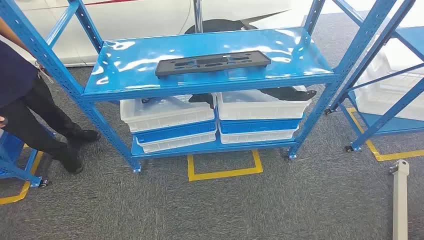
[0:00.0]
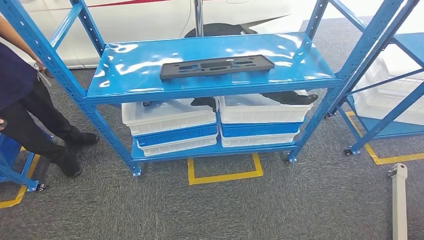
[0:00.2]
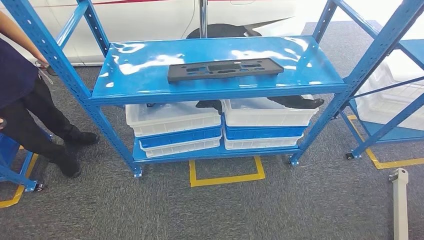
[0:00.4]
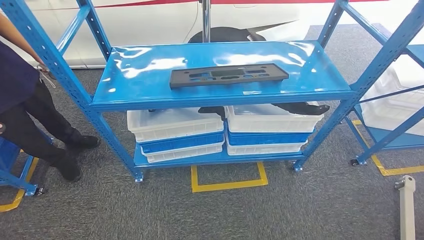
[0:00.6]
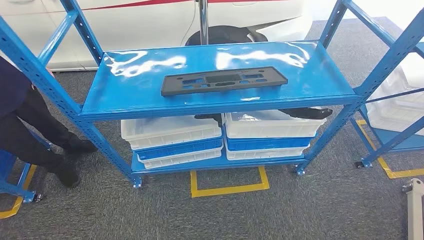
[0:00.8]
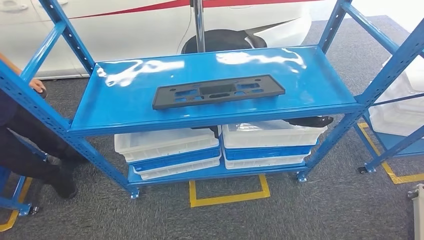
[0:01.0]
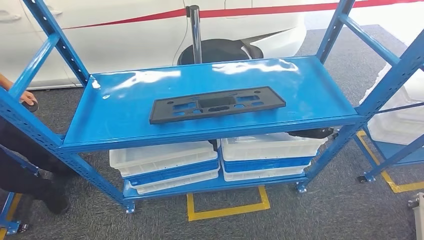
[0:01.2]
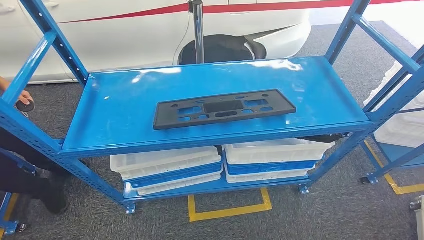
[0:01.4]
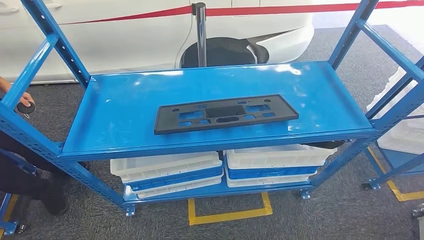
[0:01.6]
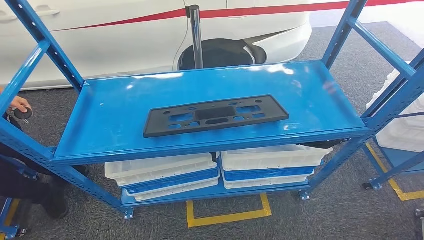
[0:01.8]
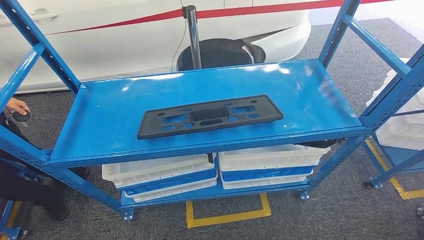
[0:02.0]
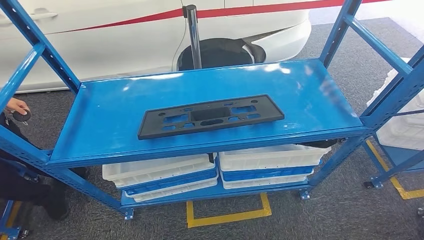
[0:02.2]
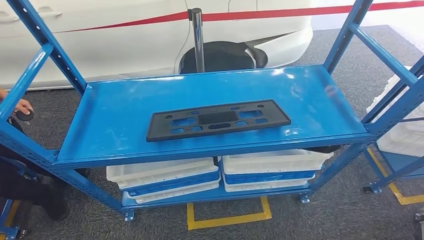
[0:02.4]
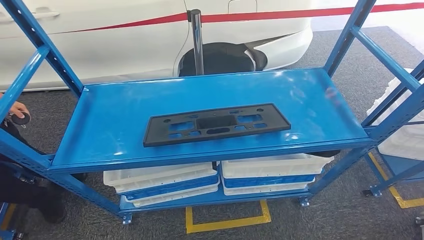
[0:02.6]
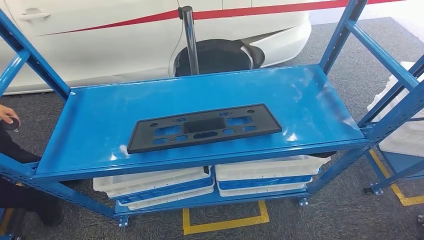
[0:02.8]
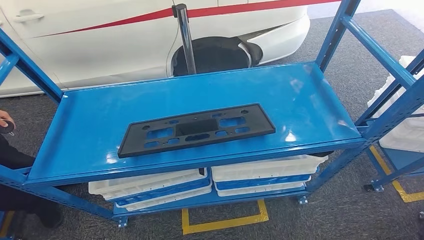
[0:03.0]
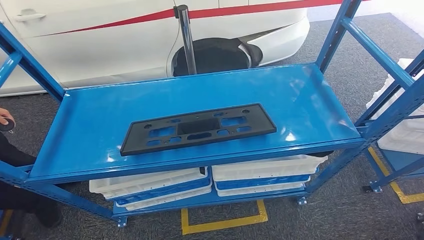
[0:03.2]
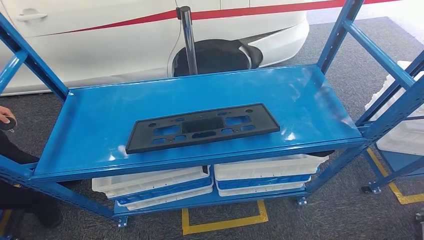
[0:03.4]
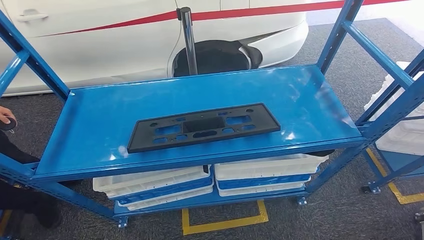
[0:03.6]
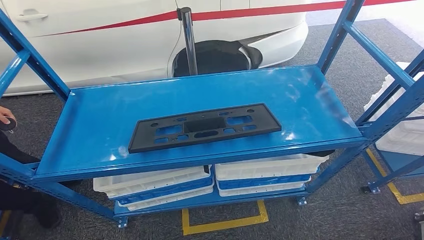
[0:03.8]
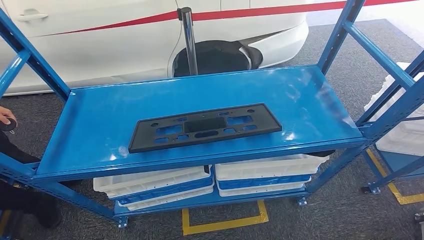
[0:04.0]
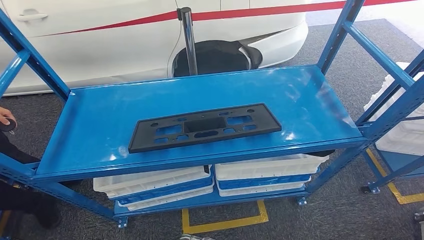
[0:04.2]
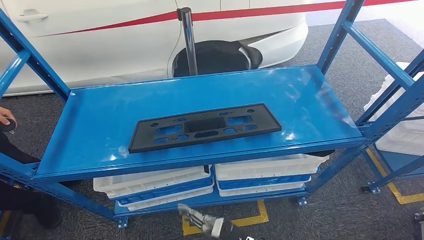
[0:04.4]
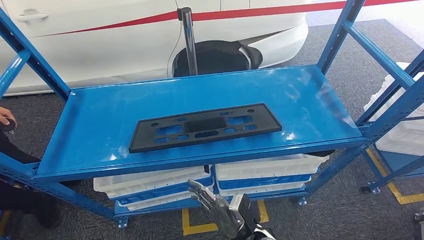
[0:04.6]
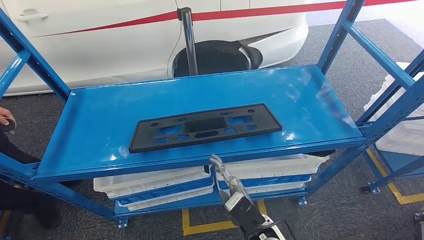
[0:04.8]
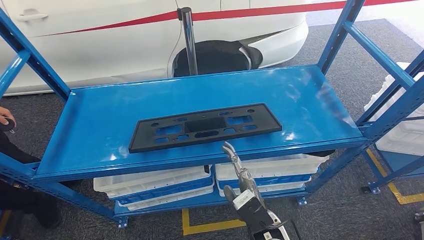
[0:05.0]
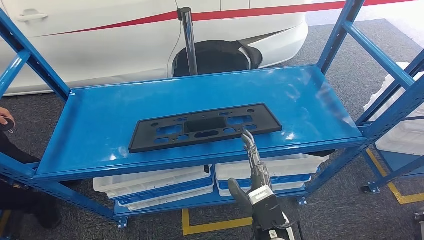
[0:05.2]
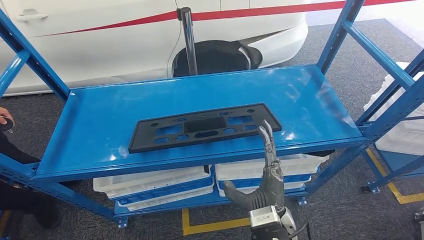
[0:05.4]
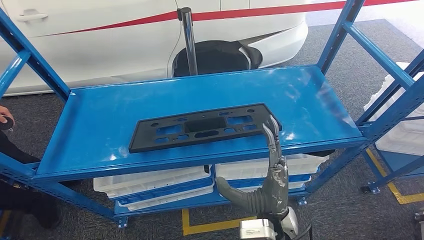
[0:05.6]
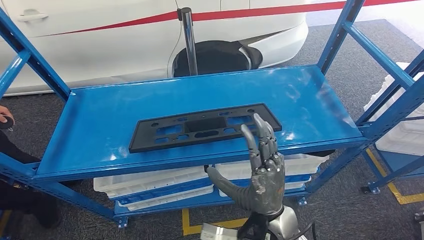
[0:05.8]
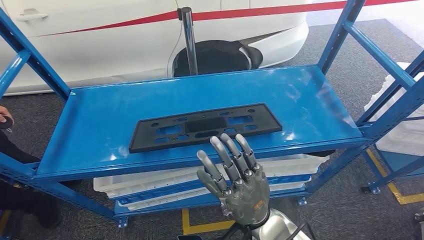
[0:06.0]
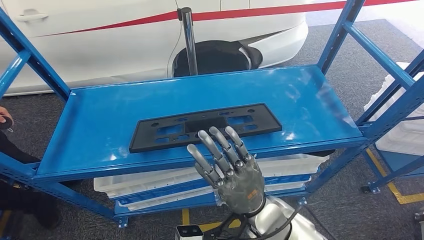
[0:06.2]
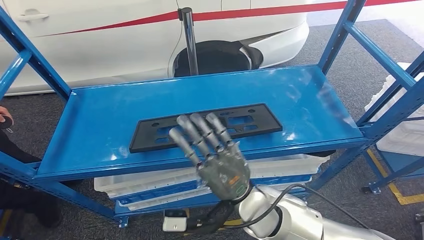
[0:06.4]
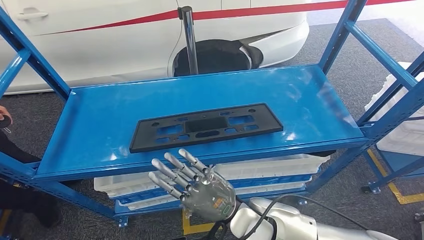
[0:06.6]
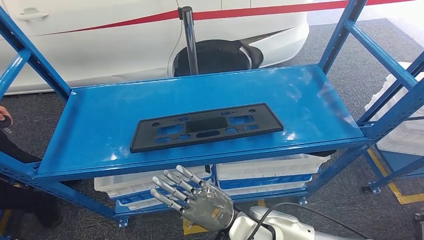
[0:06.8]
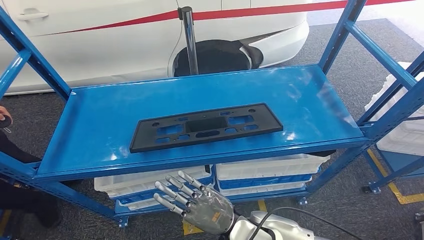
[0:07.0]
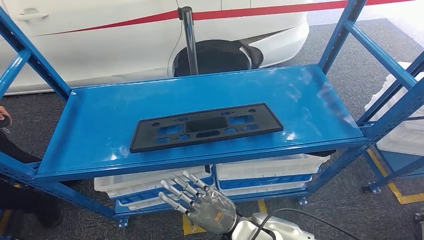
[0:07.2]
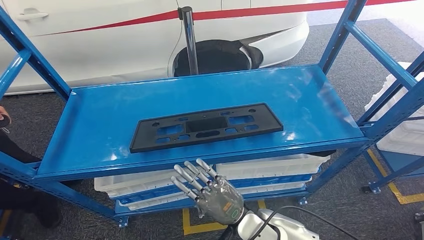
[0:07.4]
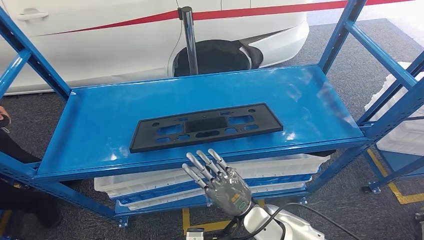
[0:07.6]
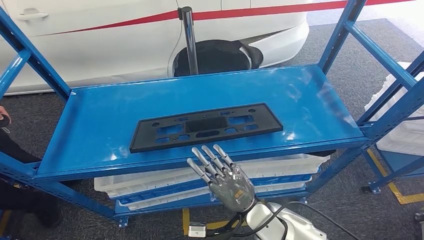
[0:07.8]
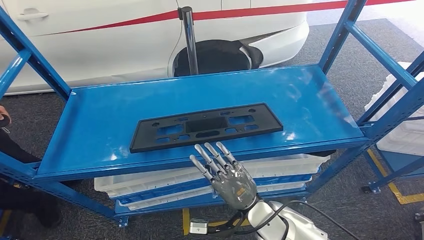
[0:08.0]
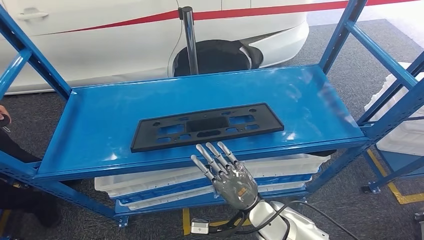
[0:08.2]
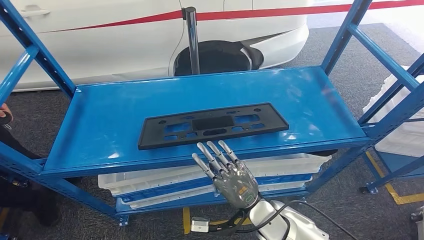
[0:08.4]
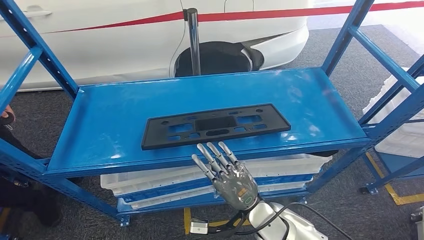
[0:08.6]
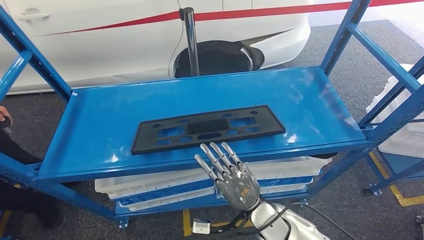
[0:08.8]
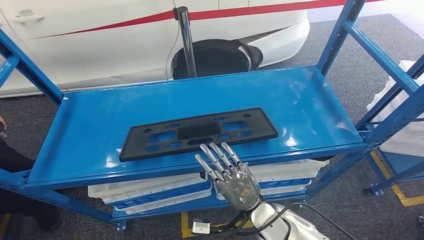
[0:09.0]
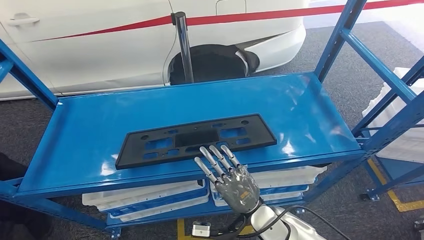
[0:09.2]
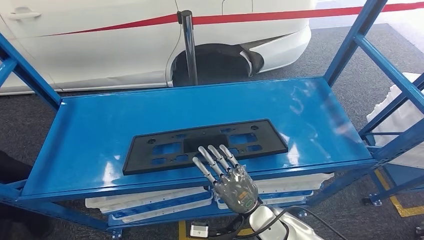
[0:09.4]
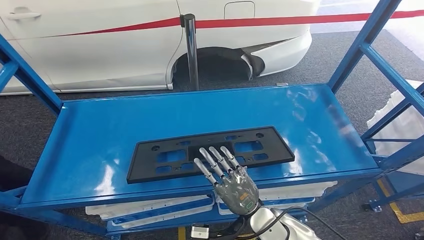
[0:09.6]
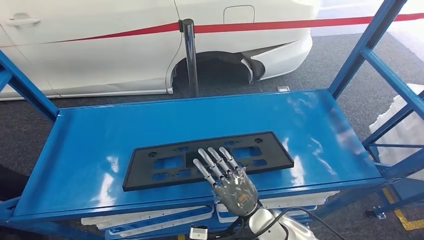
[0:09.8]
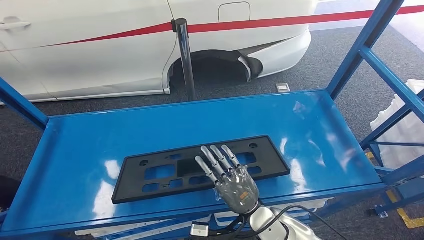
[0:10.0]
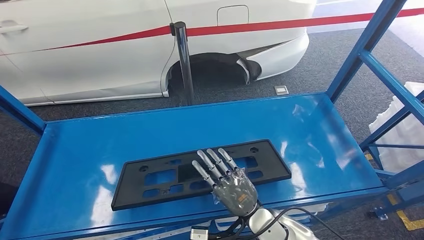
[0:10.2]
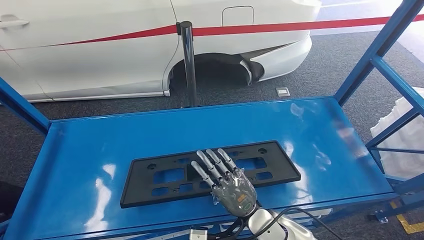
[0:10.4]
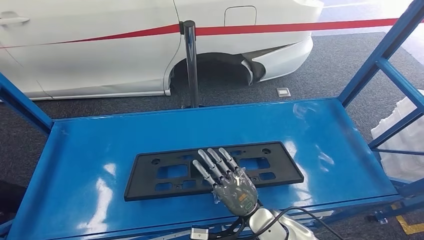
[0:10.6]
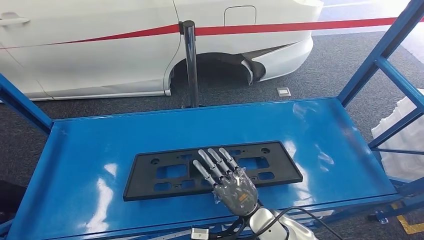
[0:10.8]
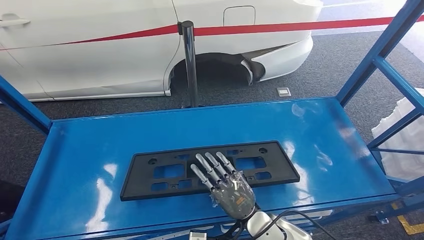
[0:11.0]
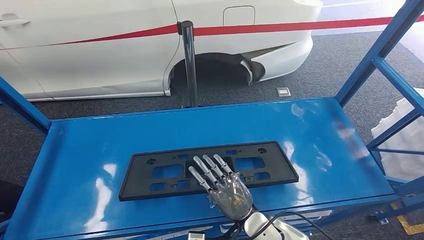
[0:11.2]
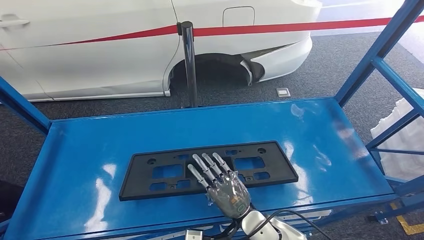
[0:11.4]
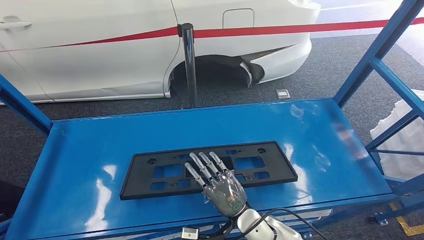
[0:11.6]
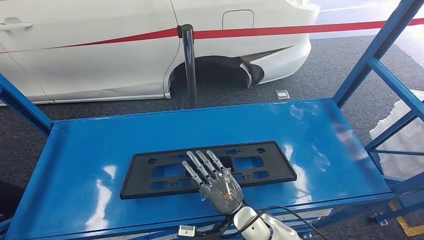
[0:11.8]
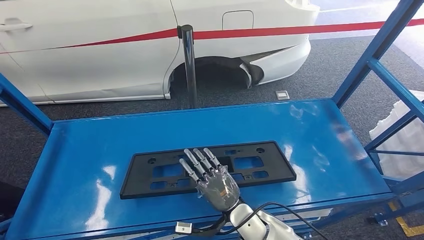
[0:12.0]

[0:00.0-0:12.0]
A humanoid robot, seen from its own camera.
0:03.0 to 0:04.4: The right hand heads upward, forward and to the left, covering approximately 20 cm.
0:04.4 to 0:06.0: The right hand travels upward by approximately 15 cm.
0:06.0 to 0:07.6: The right hand goes about 10 cm downward.
0:10.4 to 0:12.0: The hands stay close to where they were, moving slightly.

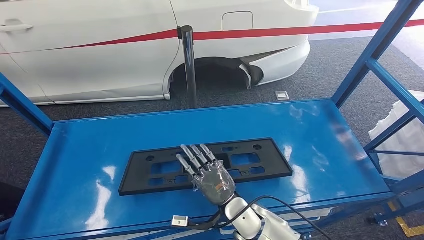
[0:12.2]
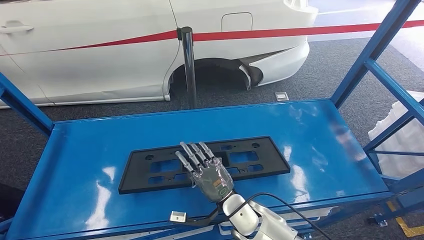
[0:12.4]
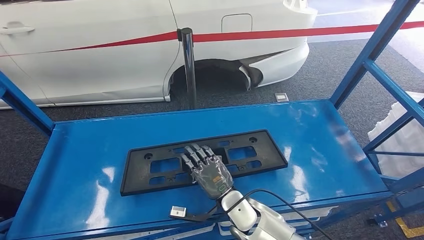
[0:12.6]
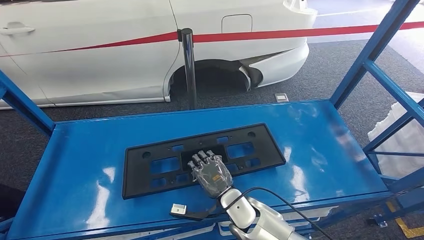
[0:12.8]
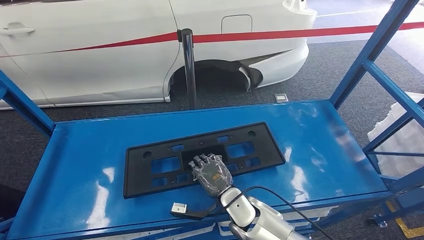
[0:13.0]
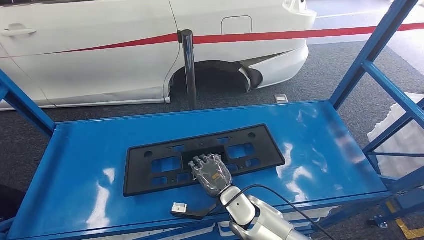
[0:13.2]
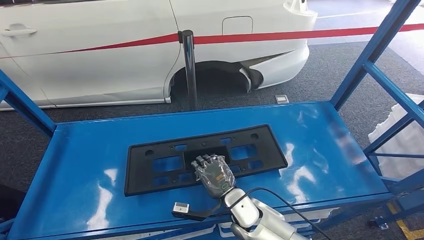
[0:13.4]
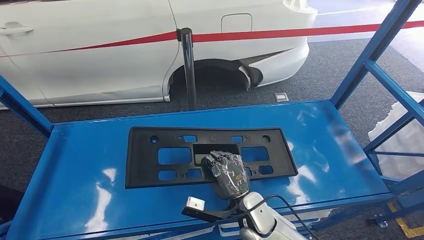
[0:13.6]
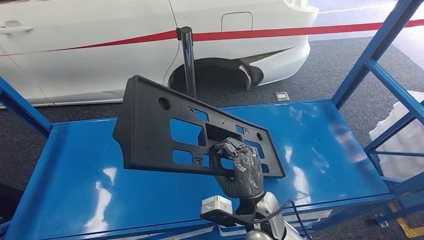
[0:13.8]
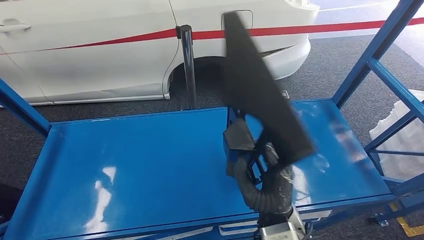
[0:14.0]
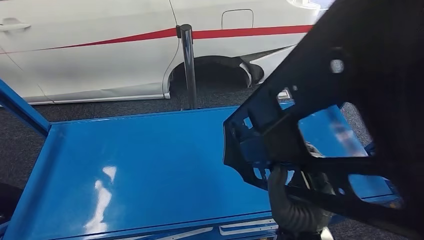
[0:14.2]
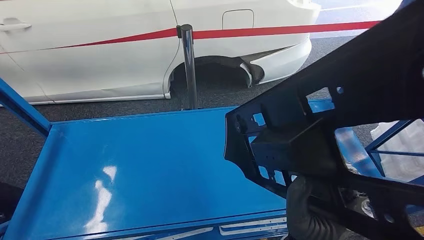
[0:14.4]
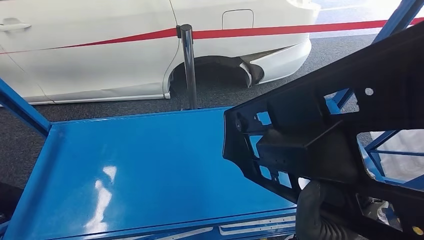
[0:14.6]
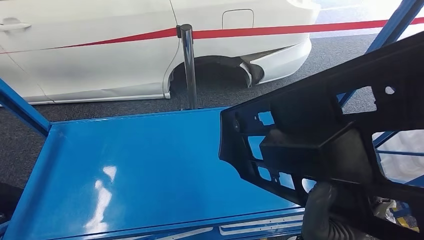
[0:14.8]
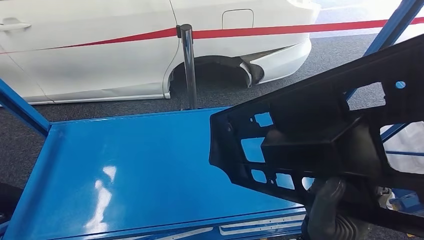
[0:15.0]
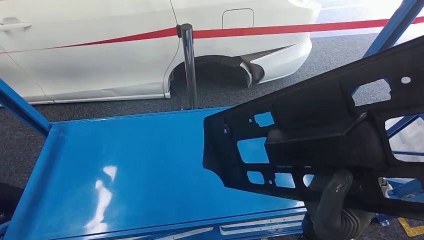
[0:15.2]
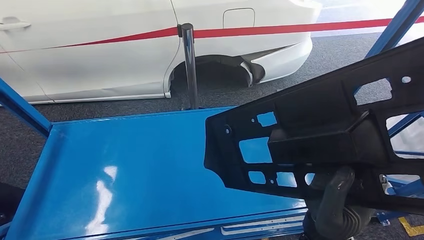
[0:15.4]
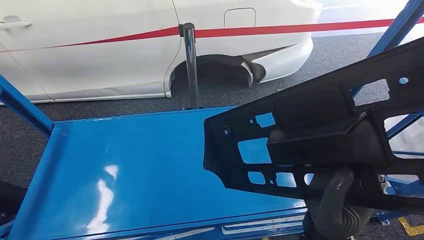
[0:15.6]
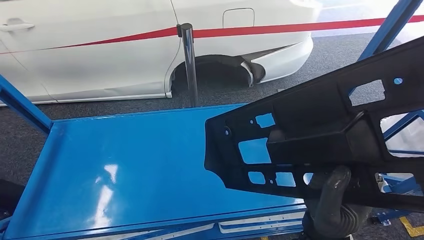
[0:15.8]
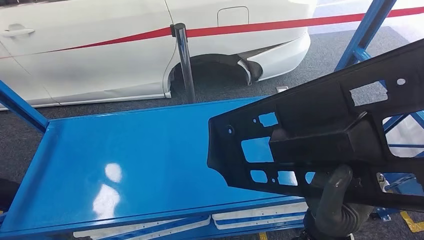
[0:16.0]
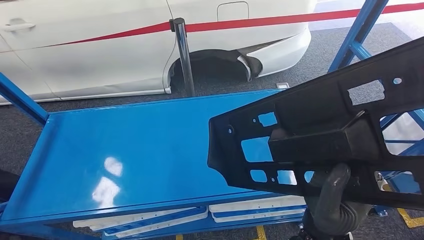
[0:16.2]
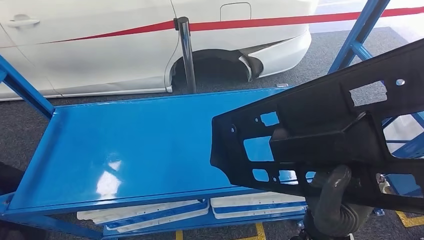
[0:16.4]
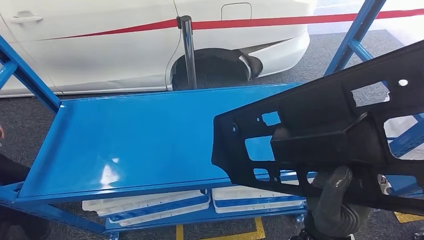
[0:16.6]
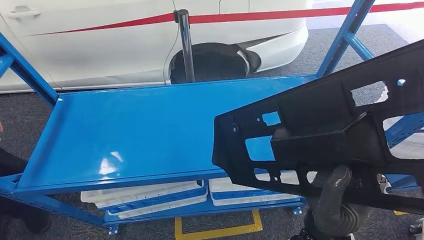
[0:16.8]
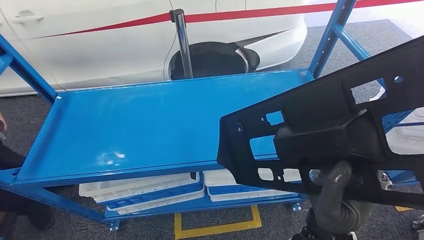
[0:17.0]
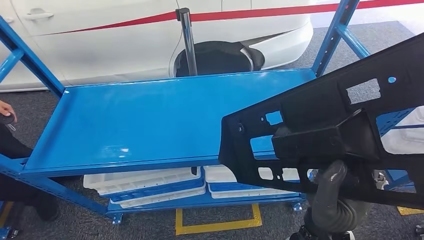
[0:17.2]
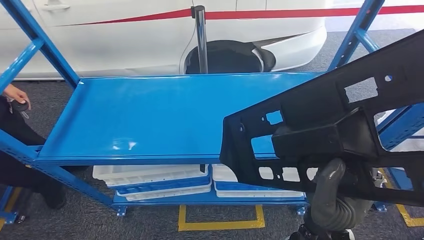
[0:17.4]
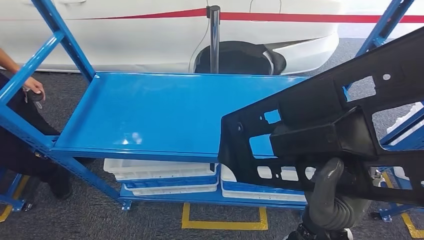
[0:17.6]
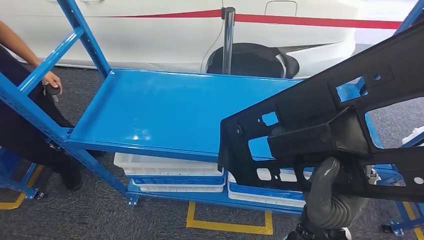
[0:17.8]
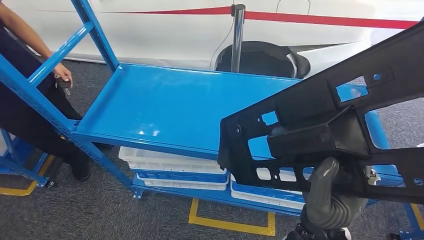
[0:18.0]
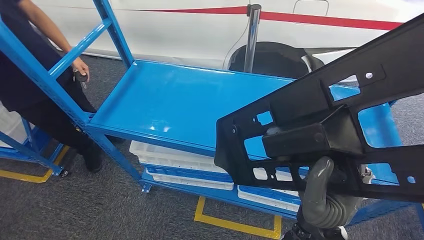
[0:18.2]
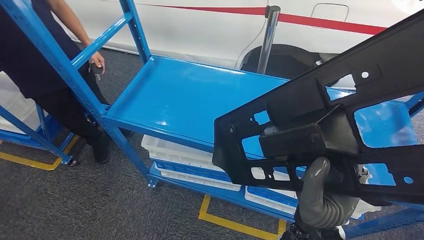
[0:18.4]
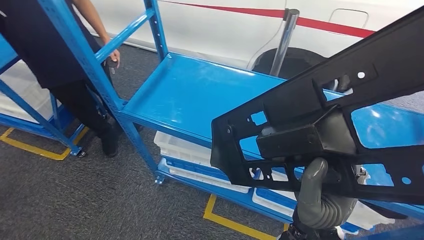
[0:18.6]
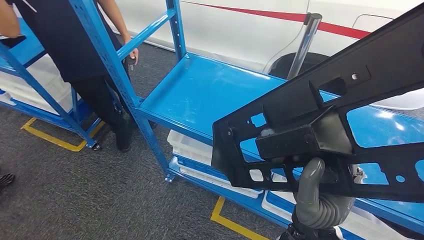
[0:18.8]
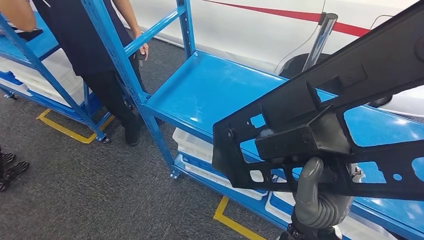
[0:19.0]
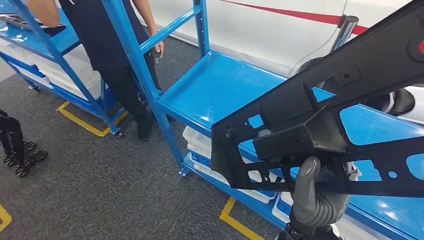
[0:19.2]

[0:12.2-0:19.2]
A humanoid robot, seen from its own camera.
Step, 0:12.2 to 0:14.6: Pick up the large material from the shelf.
